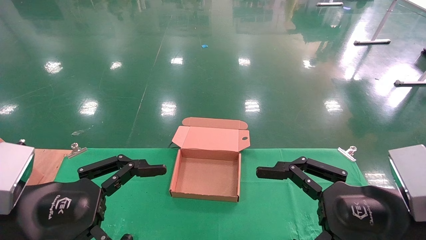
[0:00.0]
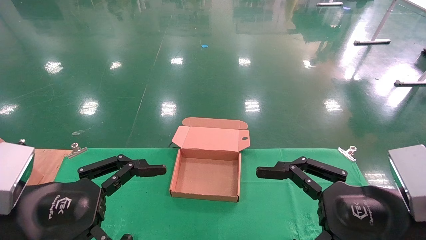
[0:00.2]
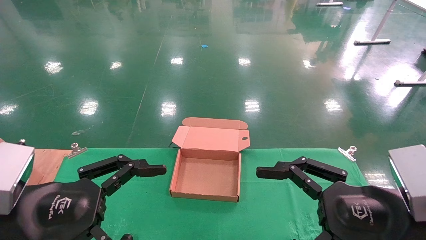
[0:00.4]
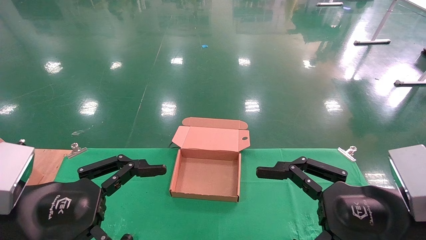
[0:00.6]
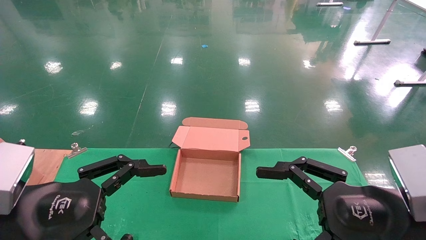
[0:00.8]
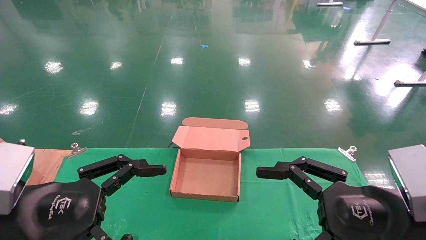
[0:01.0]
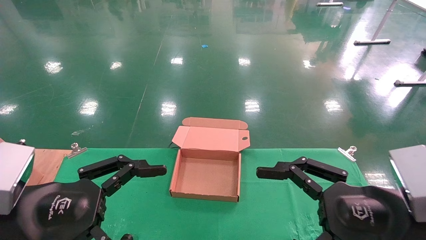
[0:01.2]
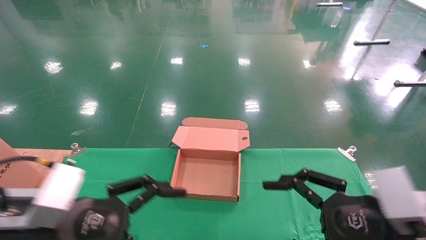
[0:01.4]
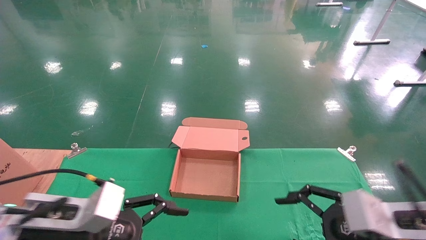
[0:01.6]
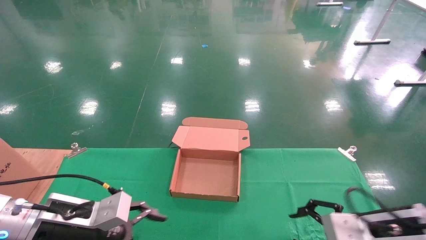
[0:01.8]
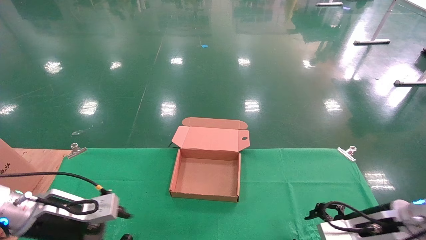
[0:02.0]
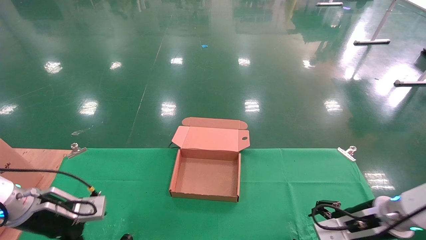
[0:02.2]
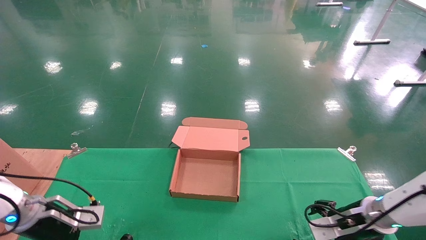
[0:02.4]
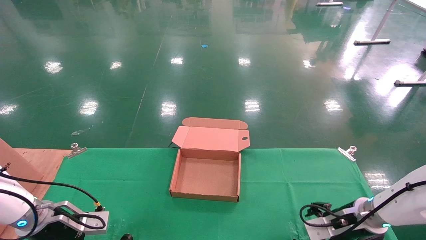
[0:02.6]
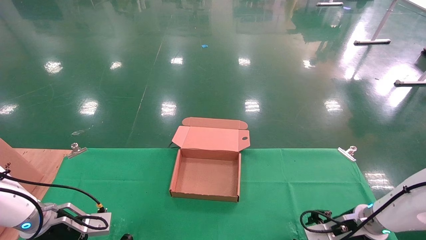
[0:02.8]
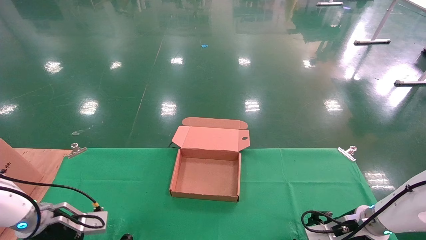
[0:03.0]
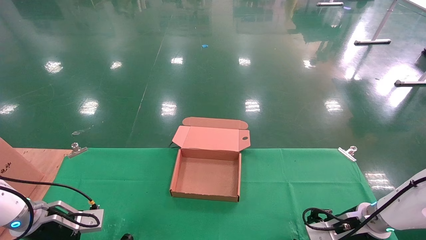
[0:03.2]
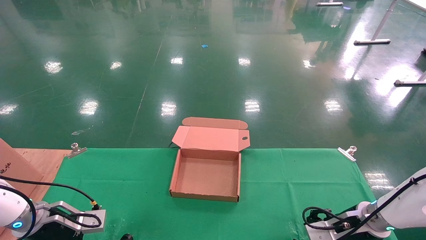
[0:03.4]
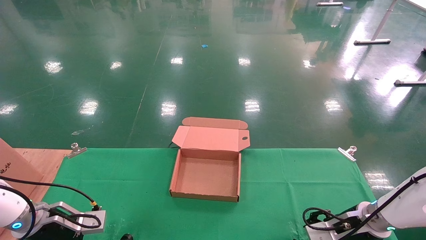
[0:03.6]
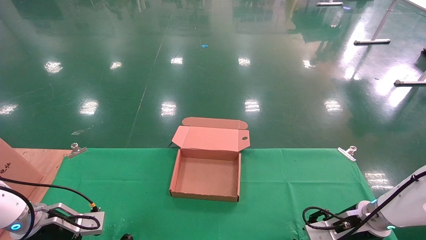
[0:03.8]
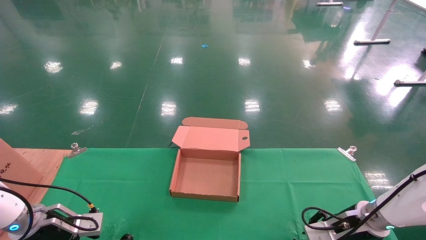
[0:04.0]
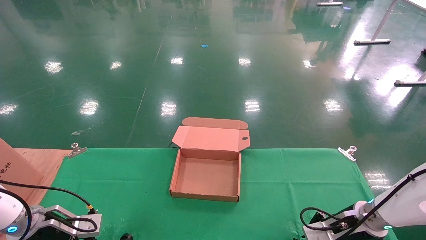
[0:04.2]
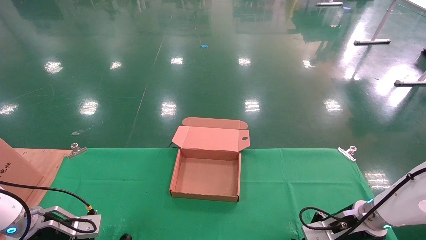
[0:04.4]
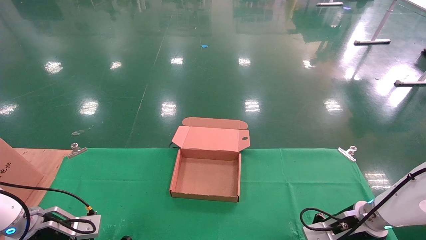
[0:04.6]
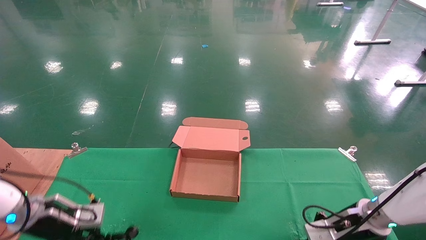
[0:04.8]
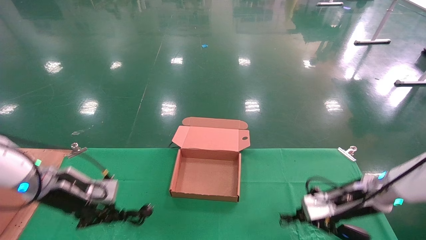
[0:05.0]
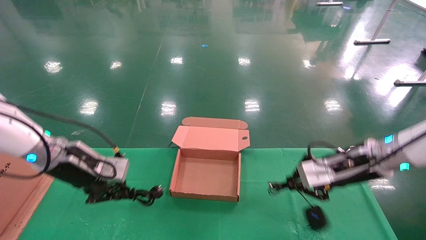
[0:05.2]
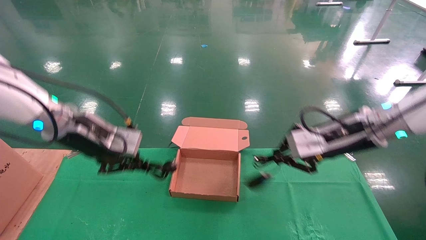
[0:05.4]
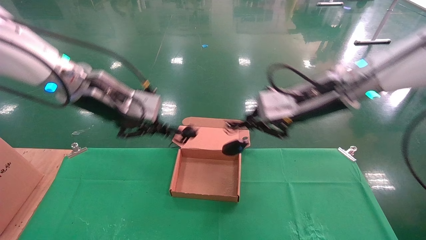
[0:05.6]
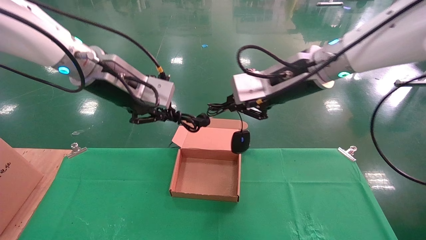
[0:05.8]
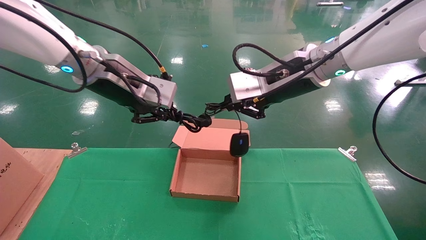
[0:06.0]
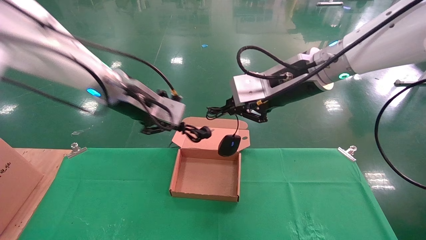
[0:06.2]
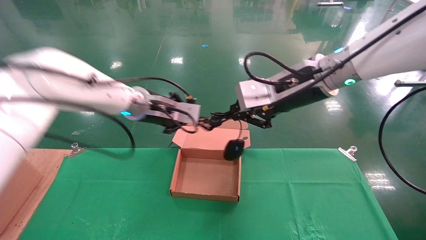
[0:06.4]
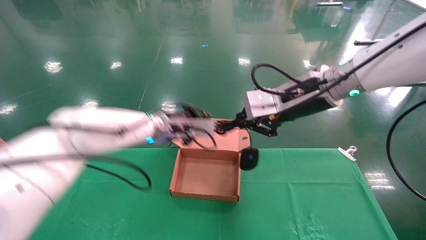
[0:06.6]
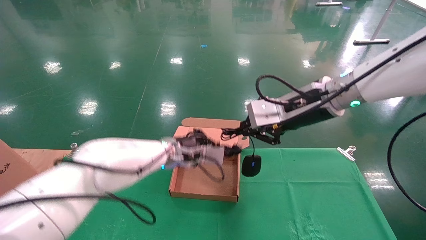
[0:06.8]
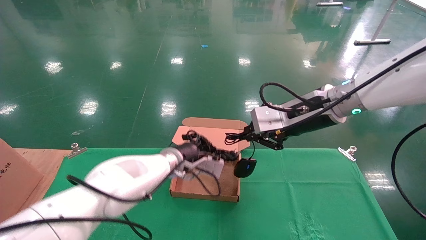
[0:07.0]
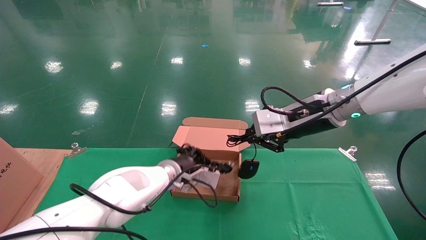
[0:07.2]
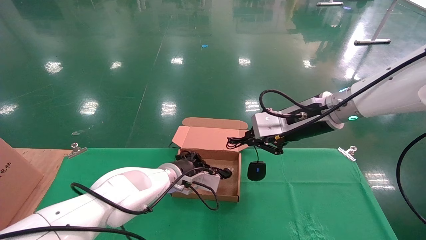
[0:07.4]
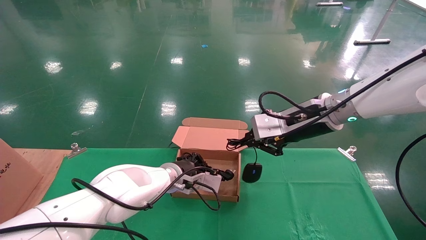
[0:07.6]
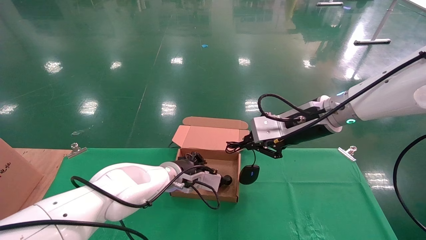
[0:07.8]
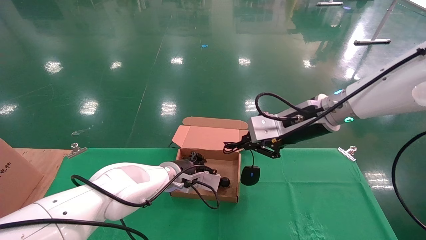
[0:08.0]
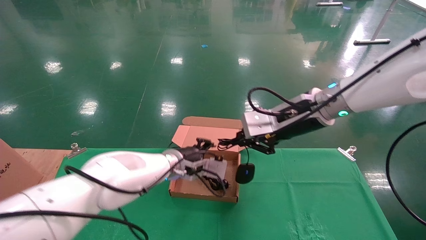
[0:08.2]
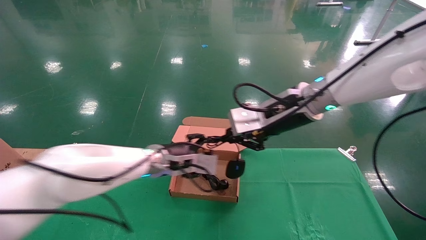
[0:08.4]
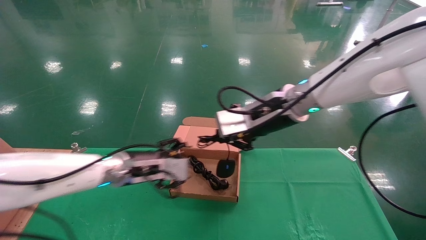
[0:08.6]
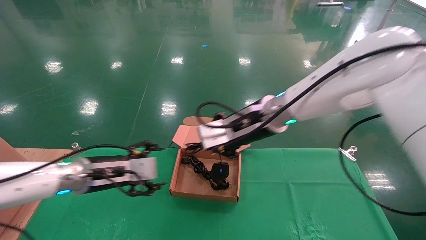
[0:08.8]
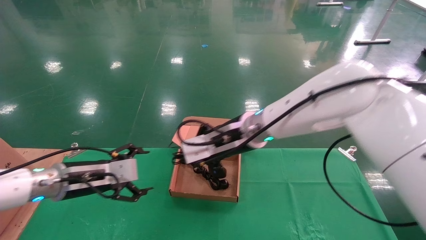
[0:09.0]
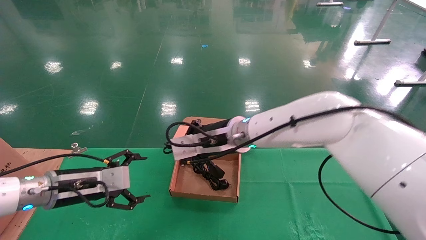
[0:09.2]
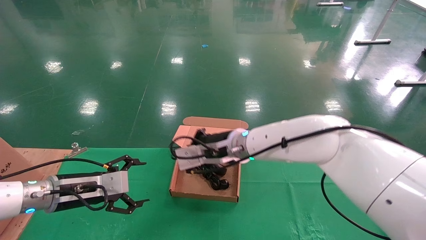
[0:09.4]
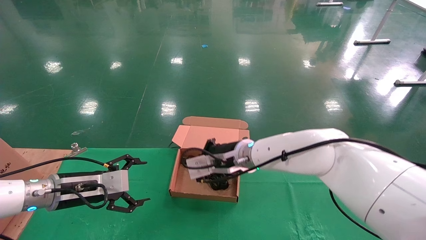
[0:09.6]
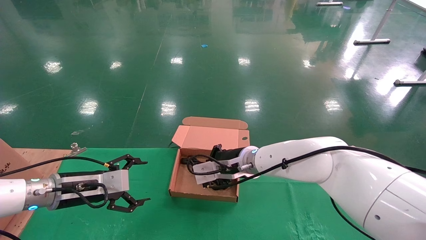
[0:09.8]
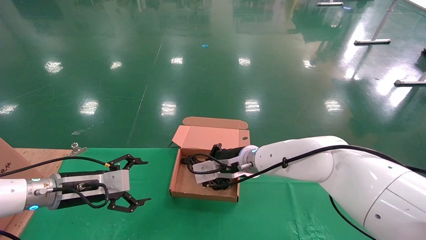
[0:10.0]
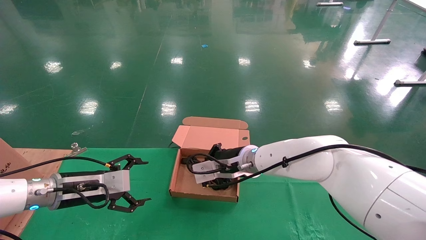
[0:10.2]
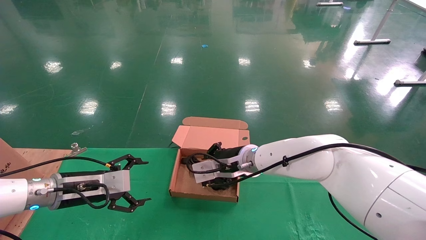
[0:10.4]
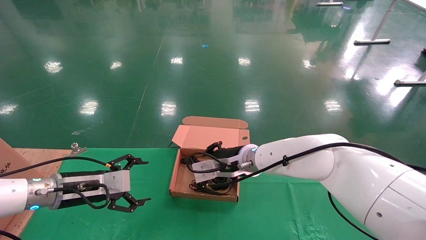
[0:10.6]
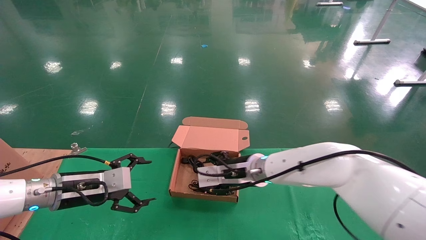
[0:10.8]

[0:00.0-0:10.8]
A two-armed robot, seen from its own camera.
Step, 0:01.2 to 0:05.4: Grab and lift both the mouse and power cord from the accessory packaging area at the same time.
0:00.0 to 0:01.6: Both grippers travel together forward and downward, some 10 cm.
0:01.6 to 0:03.0: The right gripper moves forward and downward, some 20 cm. Meanwhile the left gripper is displaced forward, to the left and downward by approximately 20 cm.
0:03.0 to 0:04.6: The right gripper closes its fingers. Meanwhile the left gripper closes.
0:04.6 to 0:06.2: The right gripper shifts approximately 35 cm upward and to the left. Meanwhile the left gripper moves upward and to the right, approximately 35 cm.
0:06.2 to 0:07.8: The right gripper heads downward, covering about 5 cm. Meanwhile the left gripper heads downward, covering about 20 cm.
0:07.8 to 0:09.2: The left gripper travels to the left and backward by approximately 25 cm, and opens its fingers. The right gripper moves to the left, some 15 cm.
0:09.2 to 0:10.8: The right gripper shifts some 10 cm downward, and opens.

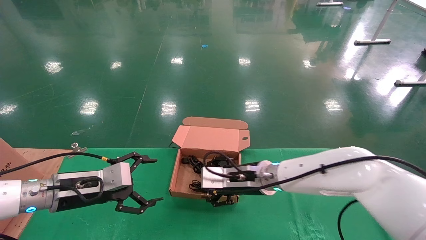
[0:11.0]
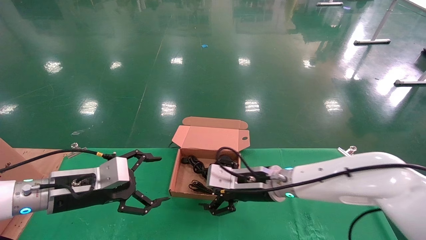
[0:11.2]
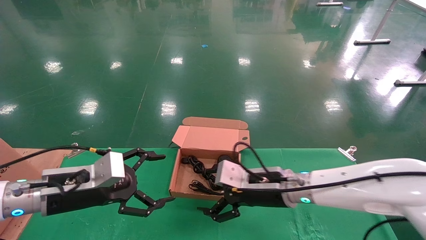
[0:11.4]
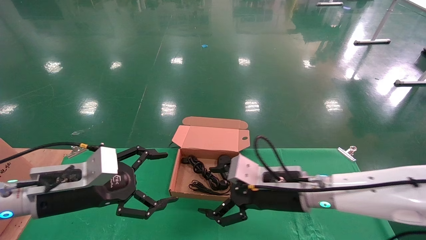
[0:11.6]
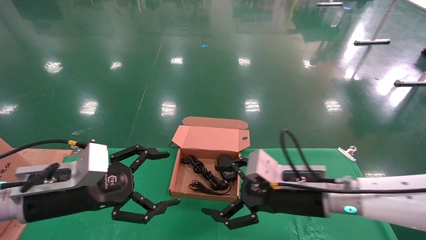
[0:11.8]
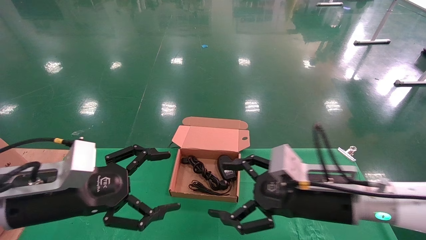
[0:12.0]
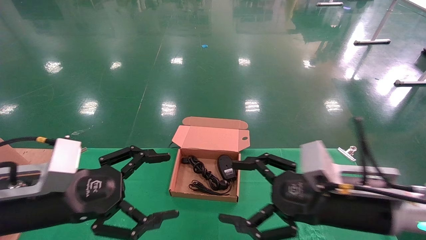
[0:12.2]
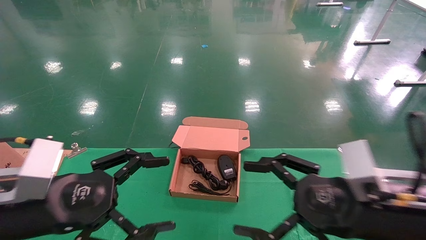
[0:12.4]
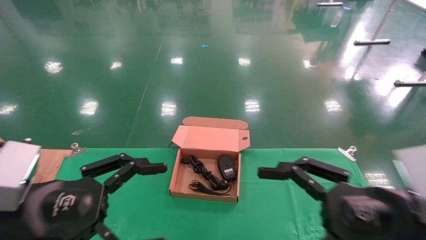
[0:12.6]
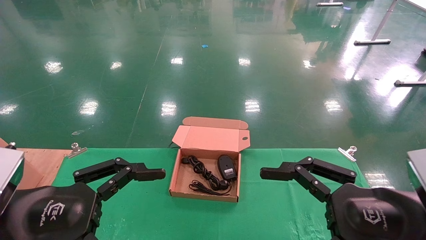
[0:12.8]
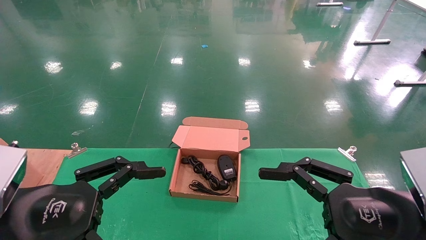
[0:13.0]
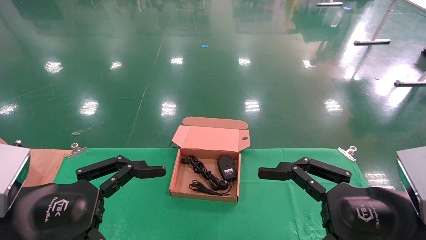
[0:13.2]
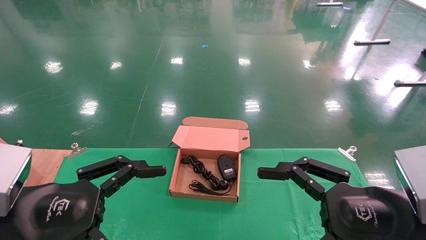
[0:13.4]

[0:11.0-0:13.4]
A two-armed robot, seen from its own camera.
0:11.0 to 0:12.2: The left gripper shifts roughly 15 cm backward and upward; the right gripper goes roughly 20 cm backward and to the right.
0:12.2 to 0:13.4: The two grippers go some 5 cm backward.

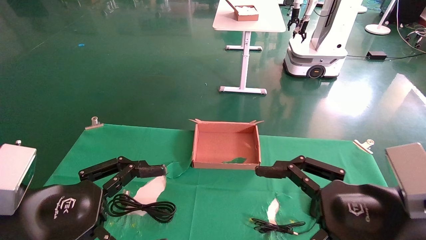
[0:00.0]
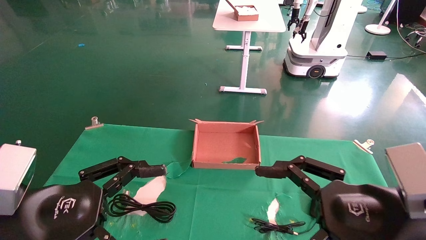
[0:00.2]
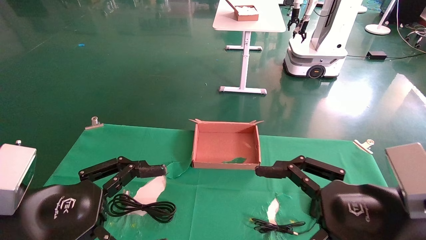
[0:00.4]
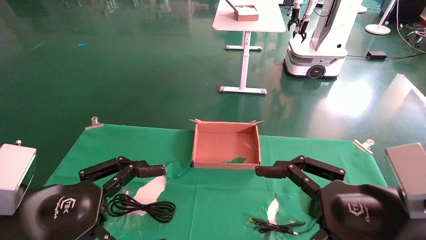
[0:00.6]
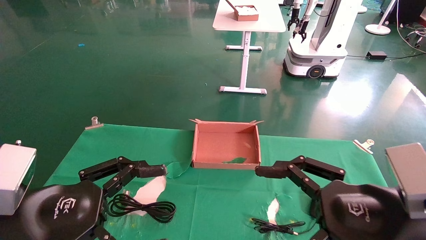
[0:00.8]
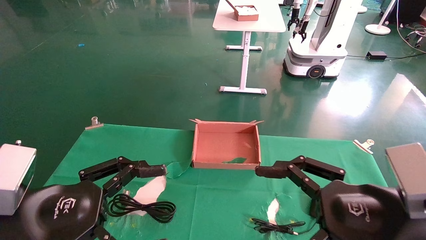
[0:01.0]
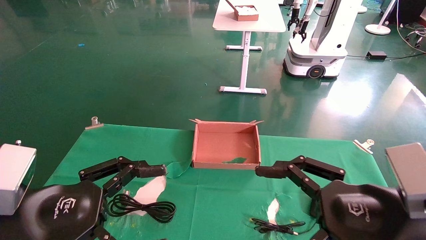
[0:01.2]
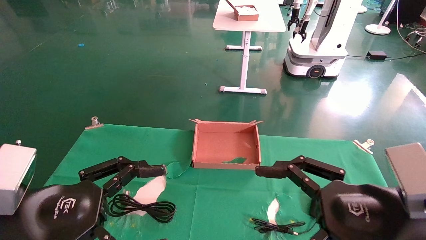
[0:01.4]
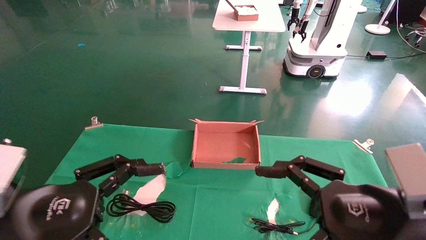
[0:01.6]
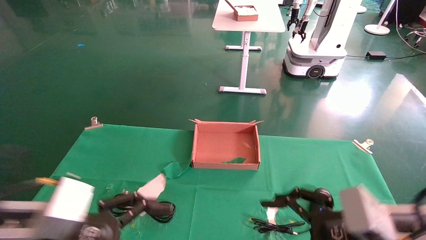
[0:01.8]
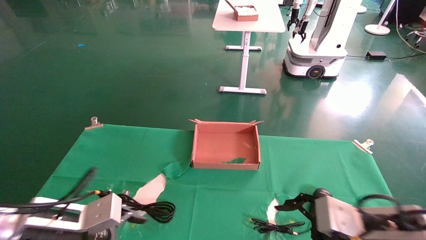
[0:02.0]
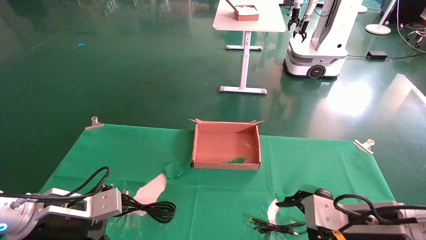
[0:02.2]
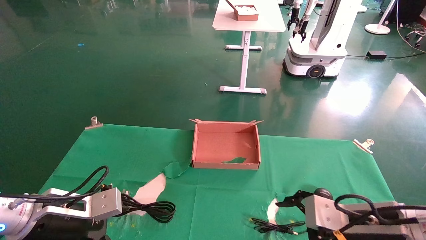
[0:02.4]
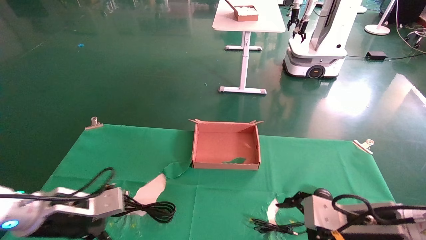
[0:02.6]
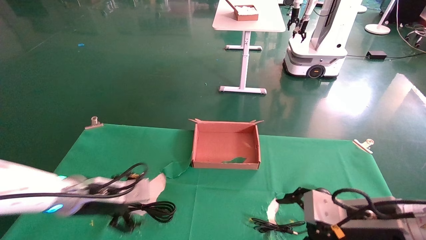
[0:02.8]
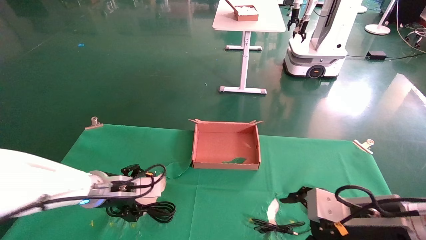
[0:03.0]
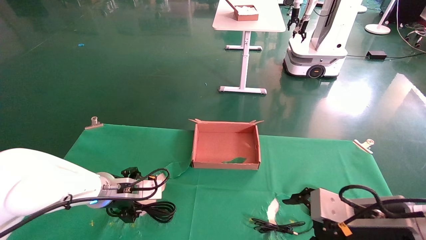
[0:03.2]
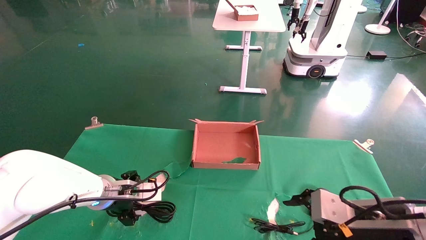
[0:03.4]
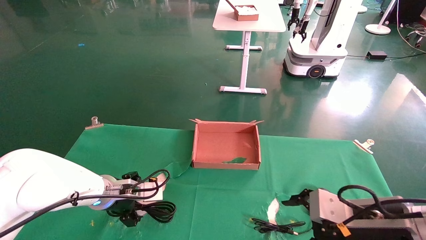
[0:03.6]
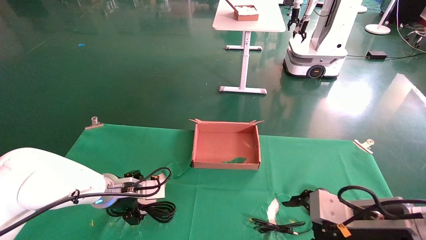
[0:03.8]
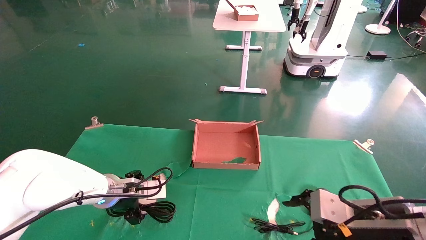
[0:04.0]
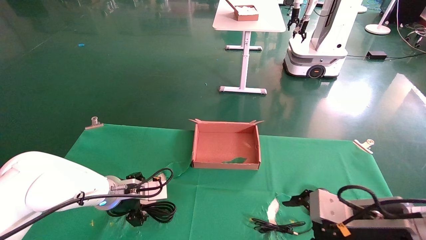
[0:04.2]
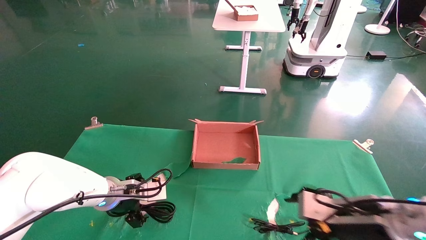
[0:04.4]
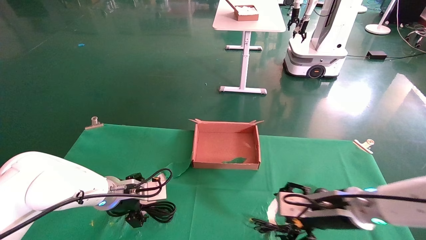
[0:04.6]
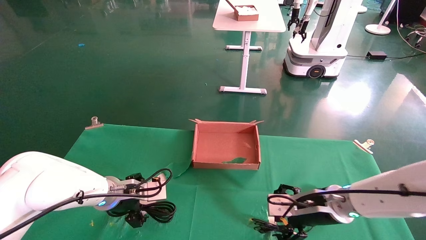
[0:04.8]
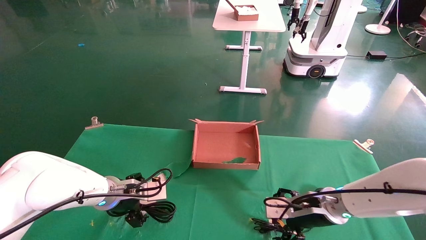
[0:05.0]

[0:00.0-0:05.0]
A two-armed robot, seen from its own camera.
0:00.0 to 0:01.6: The grippers move only a little.
0:01.6 to 0:03.4: The right gripper shifts about 5 cm forward, while the left gripper travels forward by roughly 20 cm.
0:03.4 to 0:05.0: The right gripper moves forward and downward, about 15 cm.
